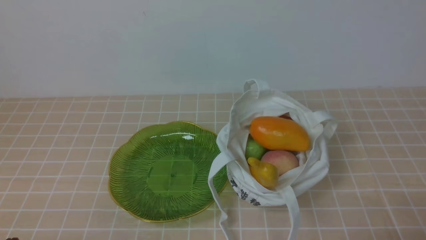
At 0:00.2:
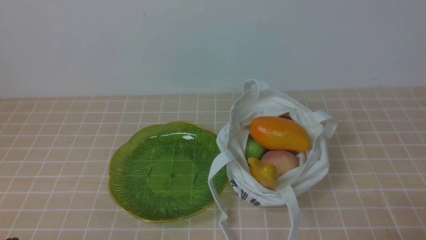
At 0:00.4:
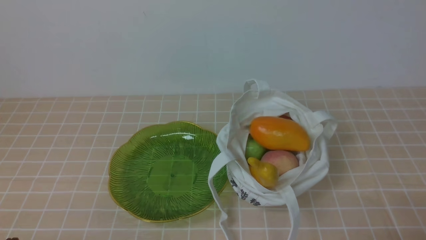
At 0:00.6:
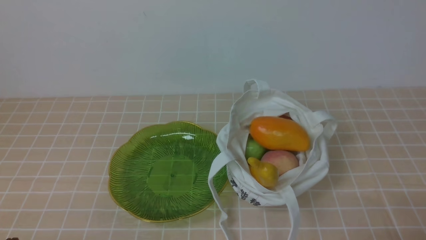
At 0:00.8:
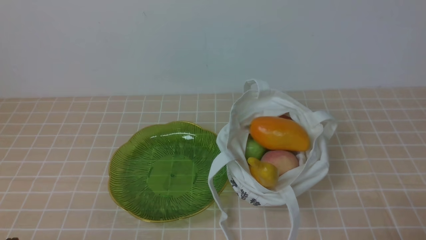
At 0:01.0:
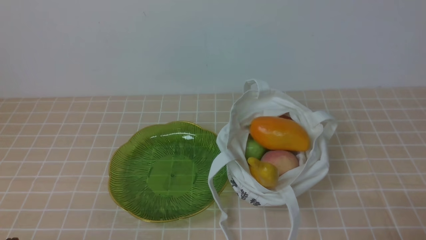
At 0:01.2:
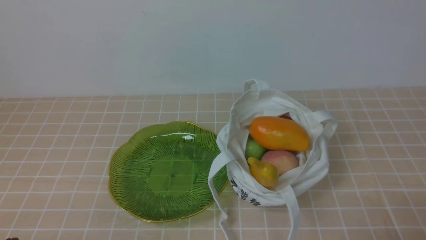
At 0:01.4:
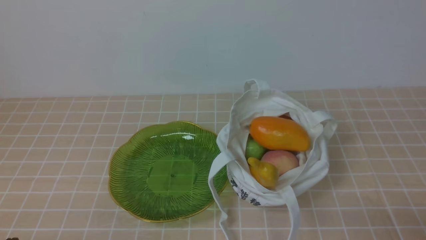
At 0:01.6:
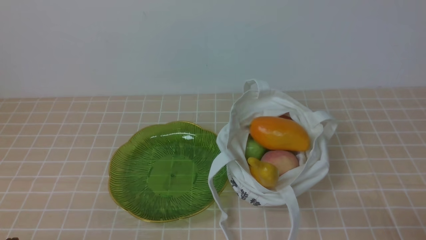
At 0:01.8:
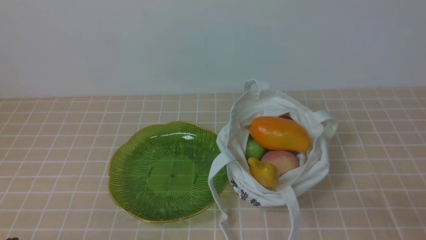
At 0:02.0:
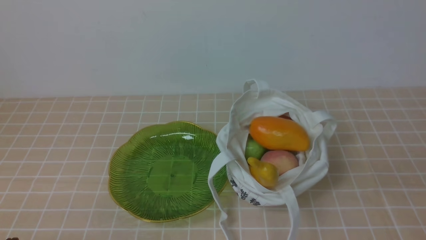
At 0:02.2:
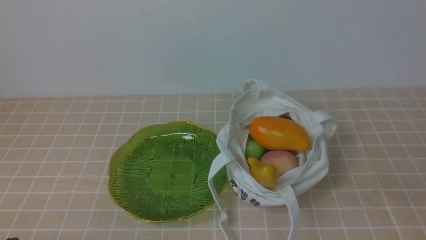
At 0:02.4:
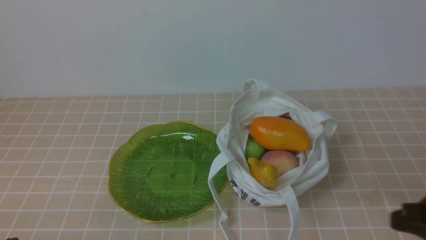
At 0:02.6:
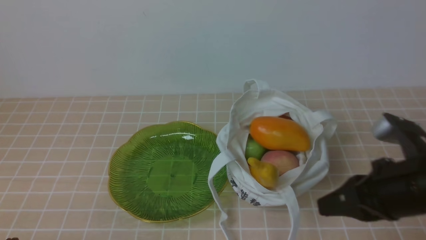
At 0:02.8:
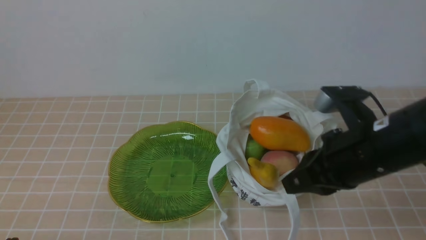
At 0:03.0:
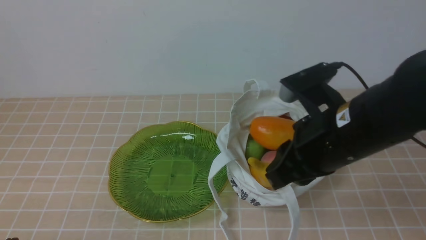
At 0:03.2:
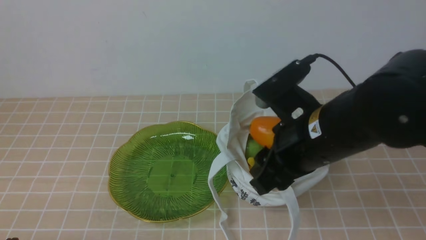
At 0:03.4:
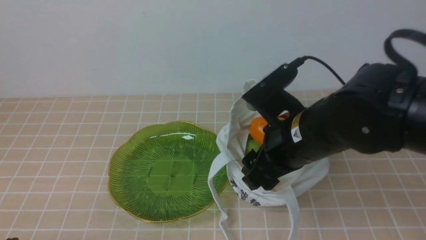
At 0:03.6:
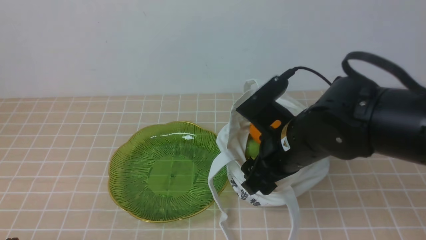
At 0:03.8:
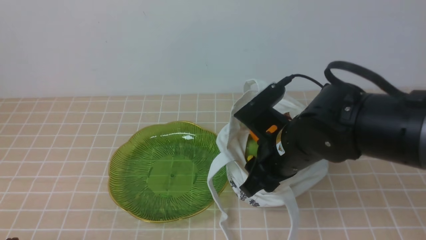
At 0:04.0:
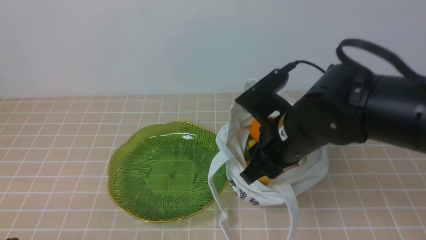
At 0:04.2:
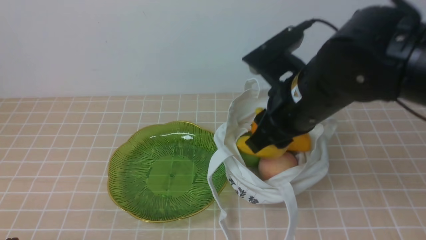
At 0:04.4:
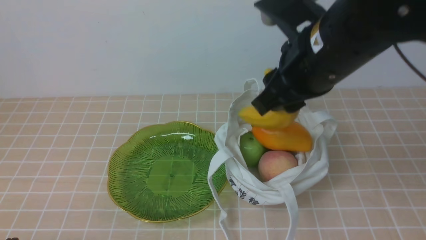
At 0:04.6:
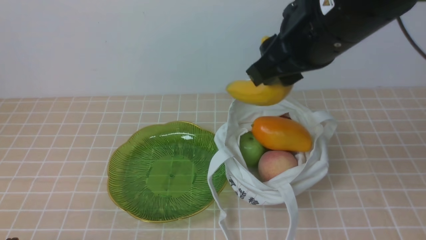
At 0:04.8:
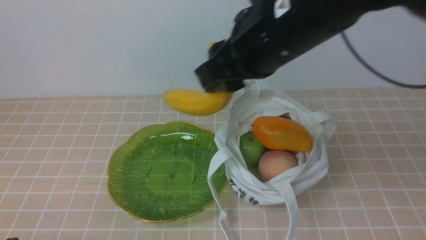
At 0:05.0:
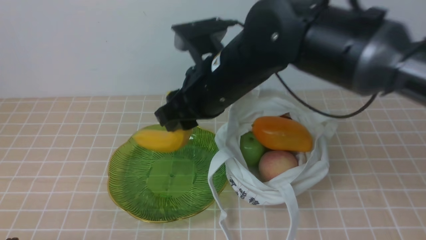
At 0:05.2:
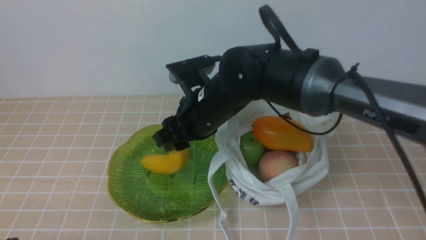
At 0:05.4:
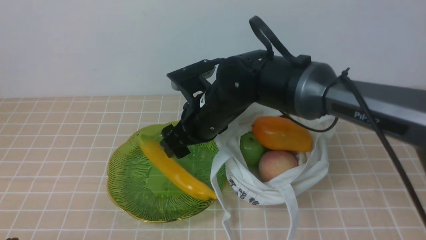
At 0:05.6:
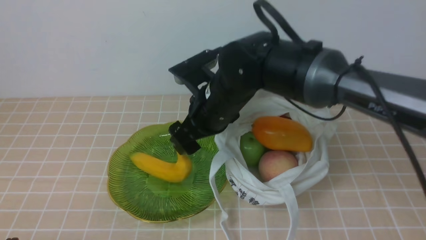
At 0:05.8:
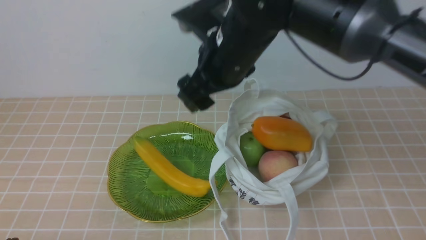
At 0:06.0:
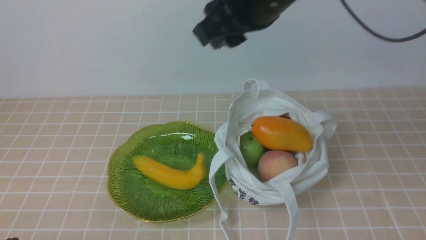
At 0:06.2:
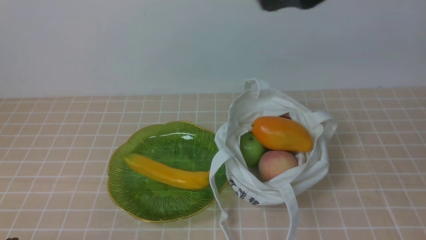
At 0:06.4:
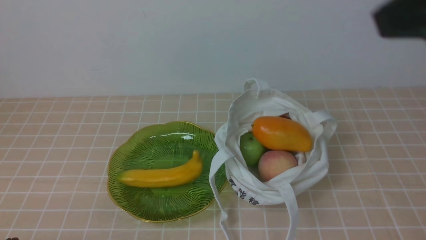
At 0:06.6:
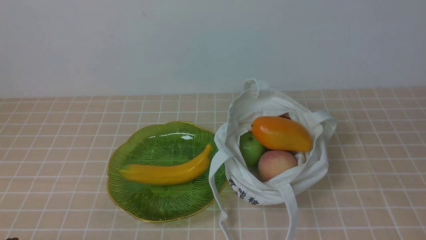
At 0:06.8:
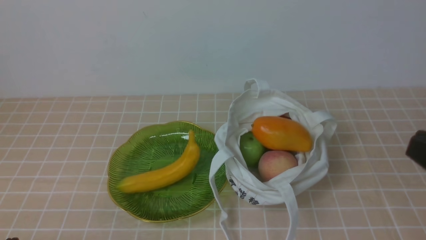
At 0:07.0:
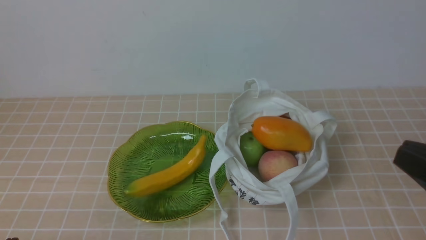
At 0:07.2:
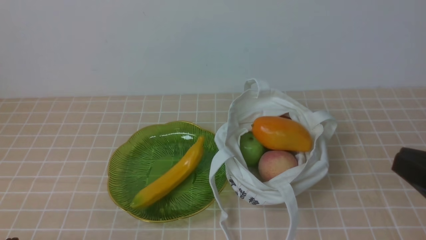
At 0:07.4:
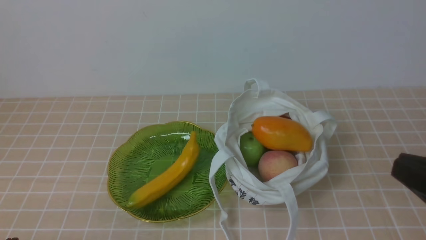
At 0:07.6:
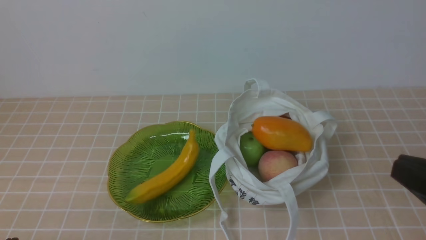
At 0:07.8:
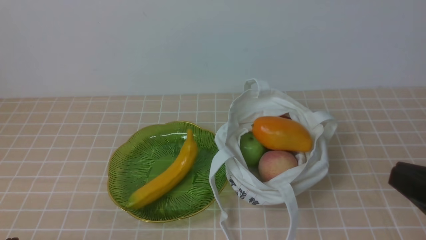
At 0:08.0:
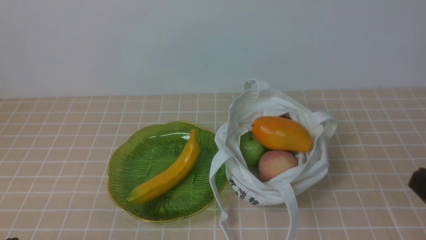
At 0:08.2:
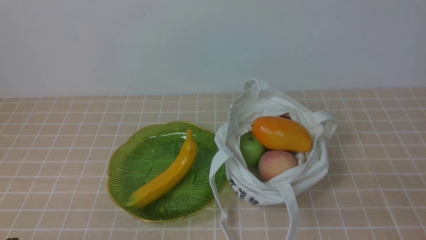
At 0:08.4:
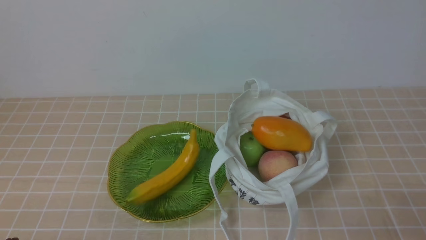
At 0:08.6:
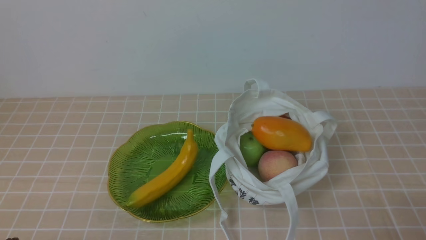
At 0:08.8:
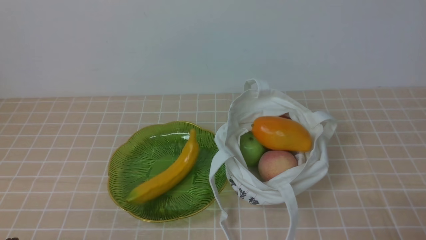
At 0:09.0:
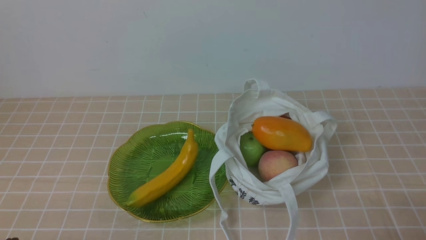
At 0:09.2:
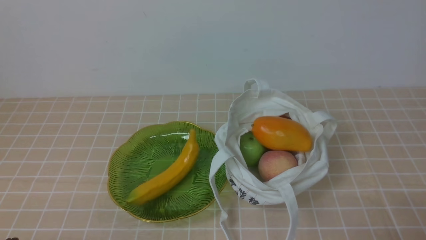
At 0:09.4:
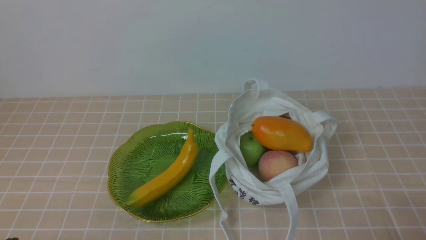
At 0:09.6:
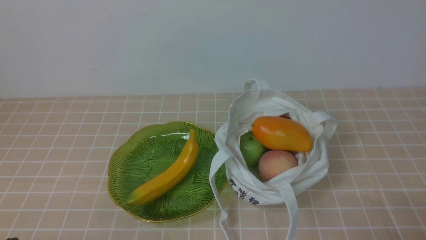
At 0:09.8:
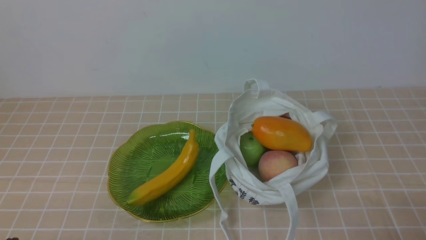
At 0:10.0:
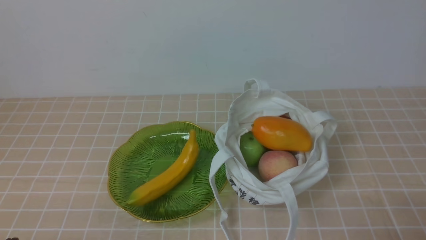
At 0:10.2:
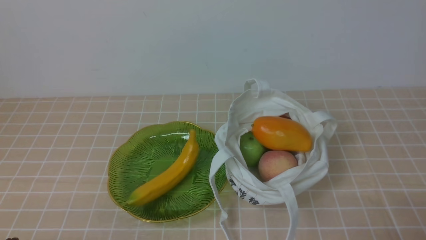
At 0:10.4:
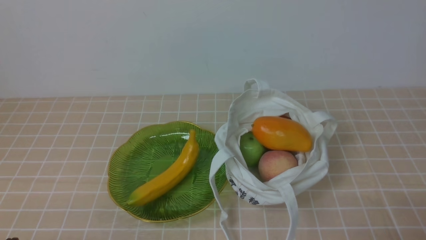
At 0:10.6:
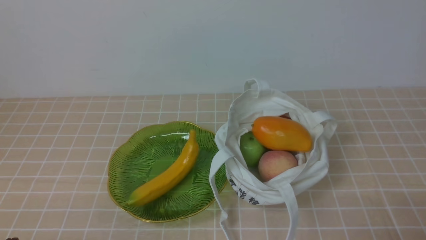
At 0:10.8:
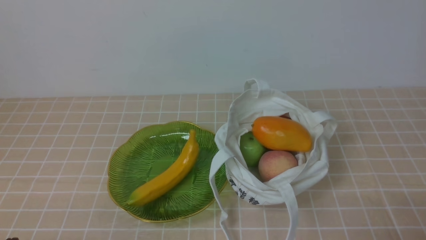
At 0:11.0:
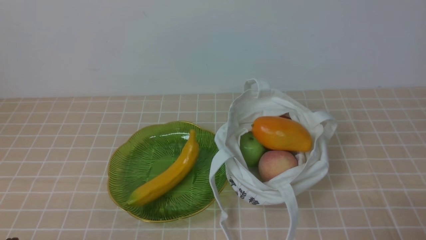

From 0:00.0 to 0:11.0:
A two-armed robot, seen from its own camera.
Step, from 0:00.0 to 0:04.2: use the right arm to grab a banana from the bag.
Step, from 0:04.4 to 0:05.4: use the right arm to put the banana into the empty plate on the right.
From 0:01.6 to 0:03.2: The right gripper travels to the left, forward and upward by some 25 cm, and opens up.
From 0:03.2 to 0:04.8: The right gripper shifts approximately 10 cm upward and to the left.
From 0:04.8 to 0:06.2: The right gripper heads upward, to the right and backward, covering some 15 cm, and closes.
From 0:06.2 to 0:07.8: The right gripper goes roughly 25 cm downward, backward and to the right.
From 0:07.8 to 0:09.4: The right gripper is displaced downward by some 15 cm.
From 0:09.4 to 0:11.0: Neither gripper changes place.
